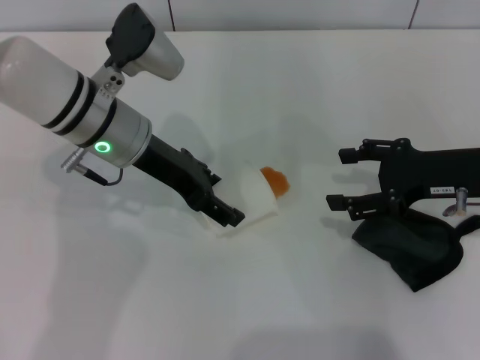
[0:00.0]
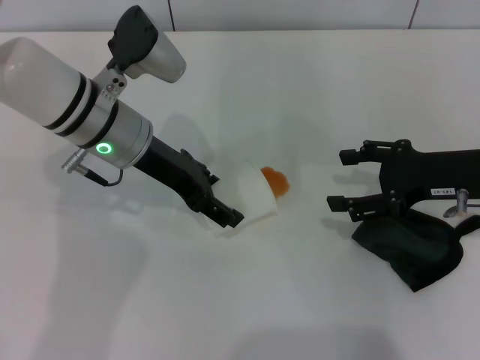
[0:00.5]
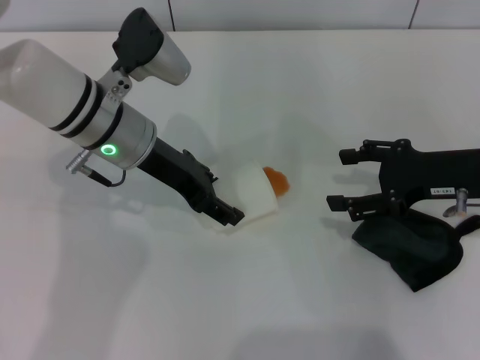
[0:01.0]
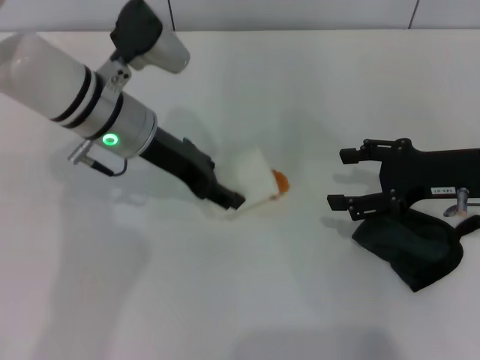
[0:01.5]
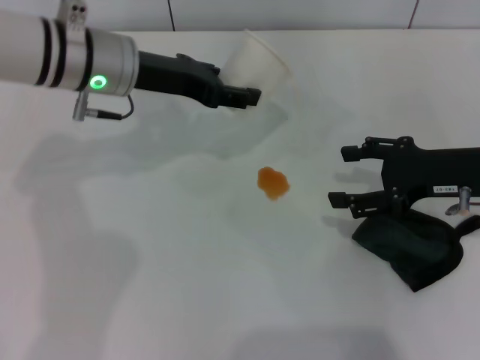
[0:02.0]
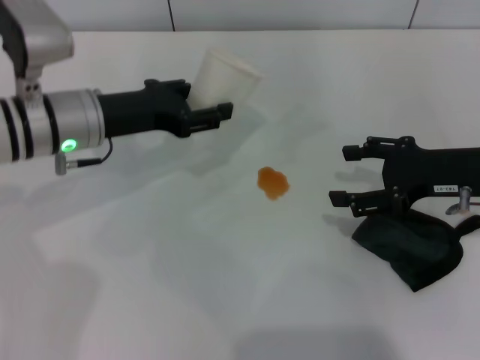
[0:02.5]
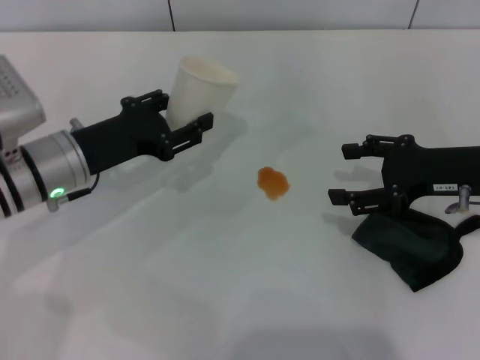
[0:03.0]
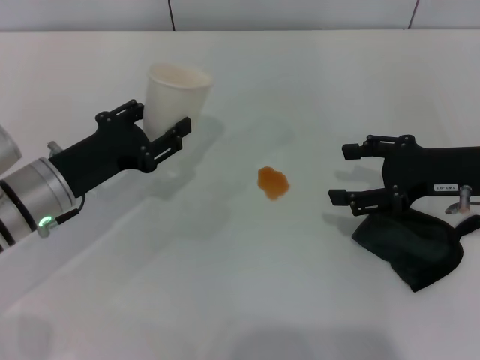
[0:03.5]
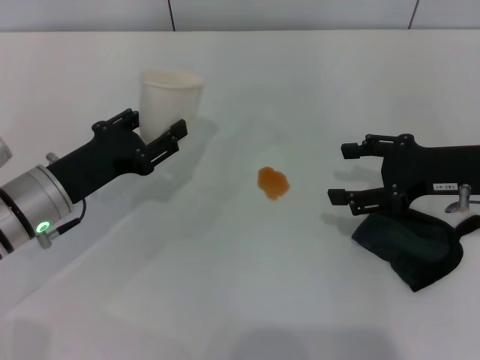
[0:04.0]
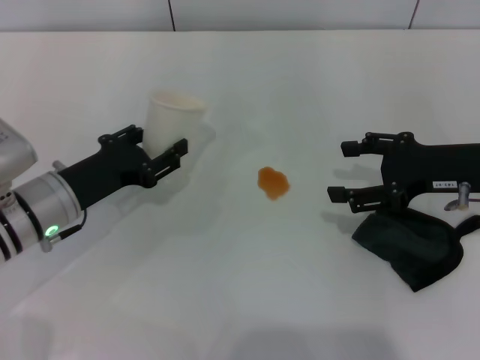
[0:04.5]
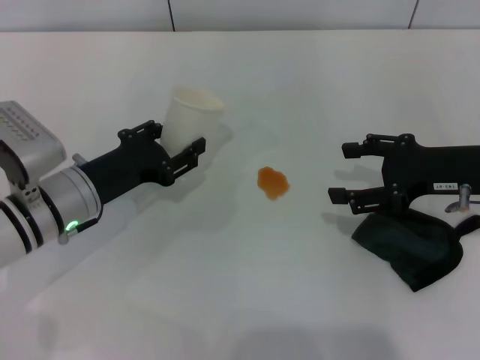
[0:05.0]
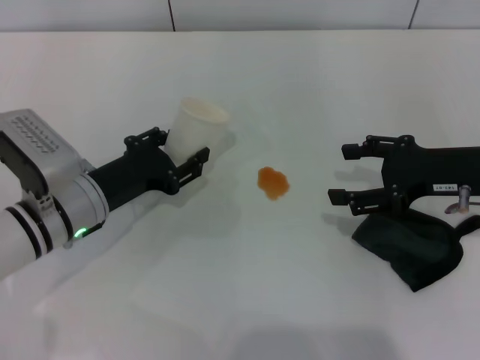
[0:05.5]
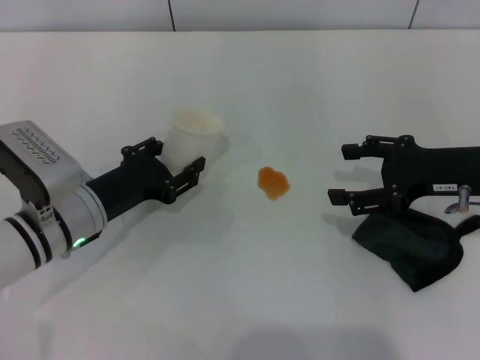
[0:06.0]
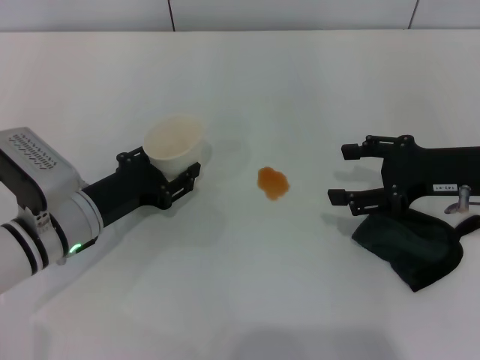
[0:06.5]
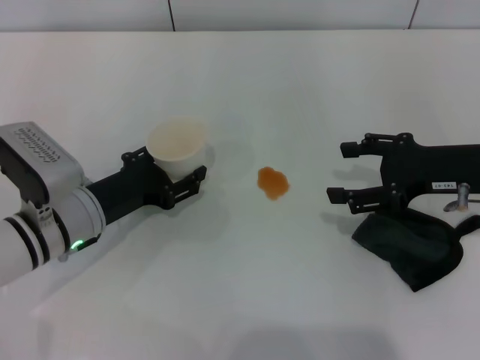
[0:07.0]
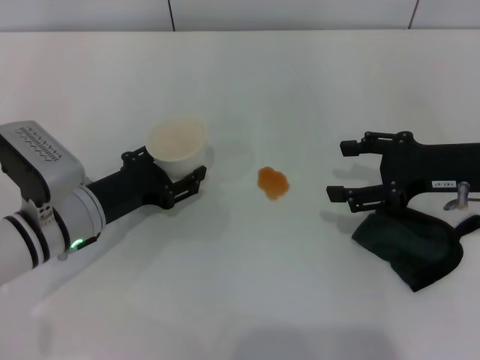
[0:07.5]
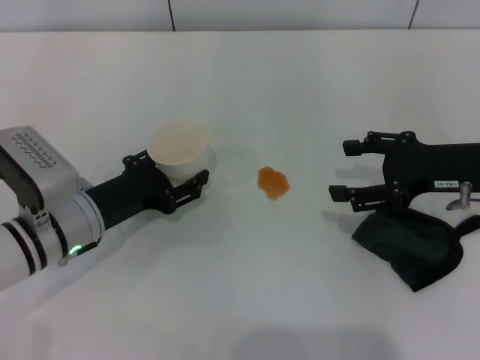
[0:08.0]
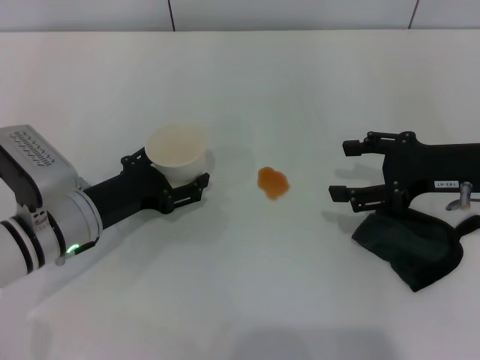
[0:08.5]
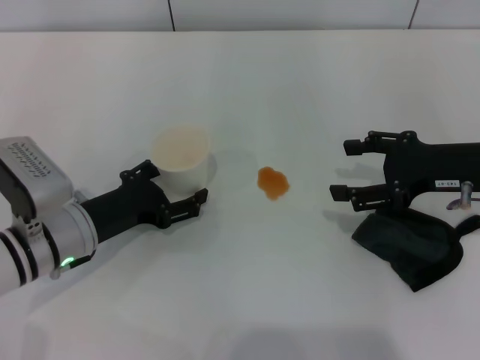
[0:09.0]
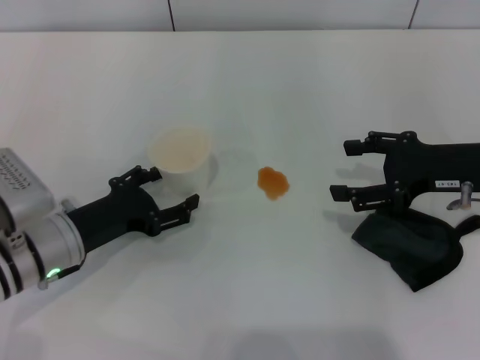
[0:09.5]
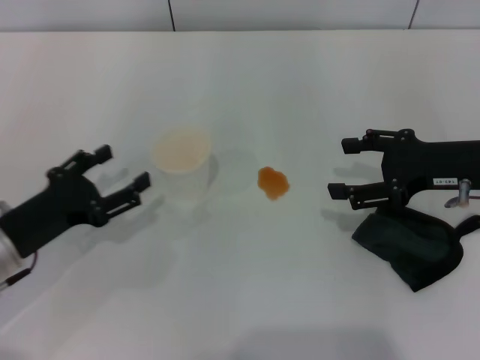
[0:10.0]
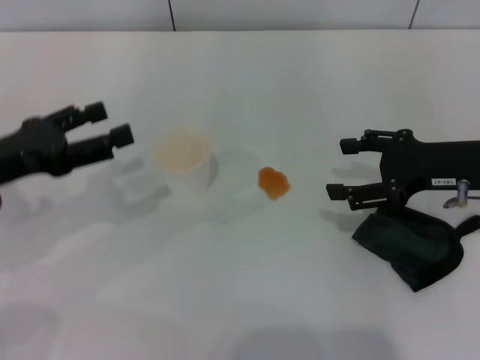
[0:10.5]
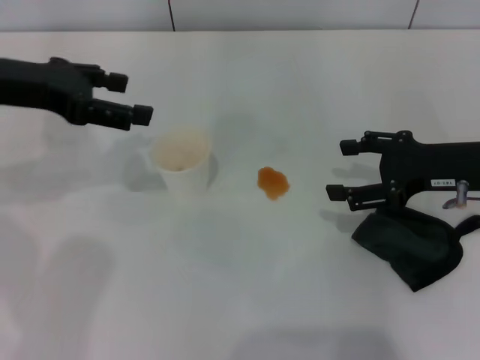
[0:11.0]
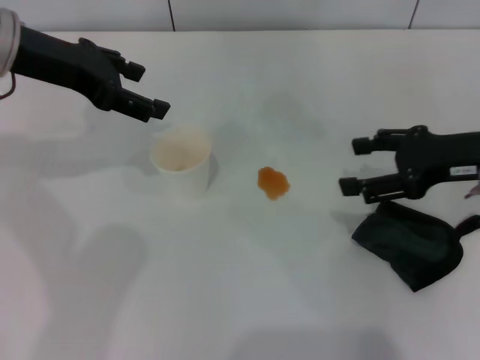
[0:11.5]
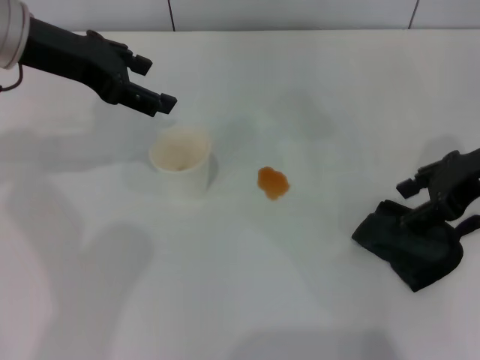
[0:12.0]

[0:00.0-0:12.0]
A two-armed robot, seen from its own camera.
Step, 0:01.0 to 0:09.5: Stand the paper cup upright with the left gripper.
0:00.0 to 0:02.0: The left gripper closes its fingers.
0:02.0 to 0:04.0: The left gripper moves backward, downward and to the left, roughly 15 cm.
0:04.0 to 0:06.0: The grippers make only small movements.
0:06.0 to 0:08.0: Neither gripper changes place.
0:08.0 to 0:10.0: The left gripper heads to the left, covering approximately 5 cm, and opens up.
0:10.0 to 0:12.0: The left gripper is displaced upward and forward by about 25 cm, while the right gripper is displaced upward by about 5 cm.

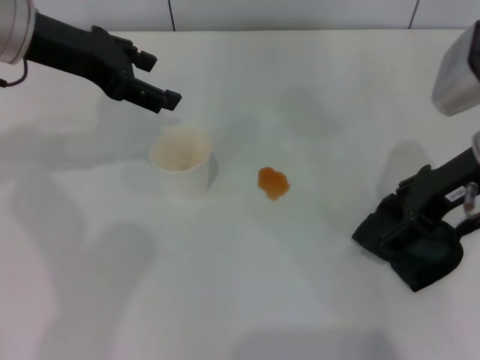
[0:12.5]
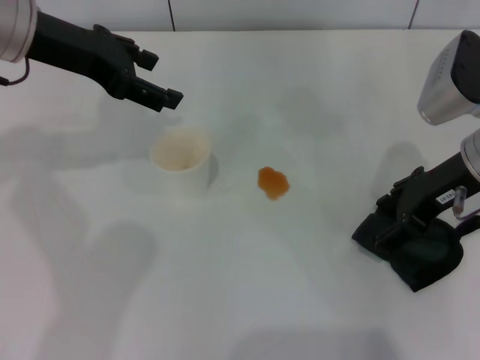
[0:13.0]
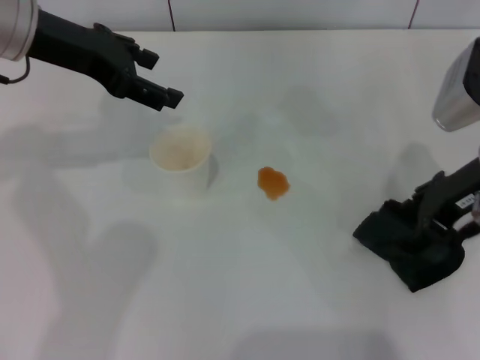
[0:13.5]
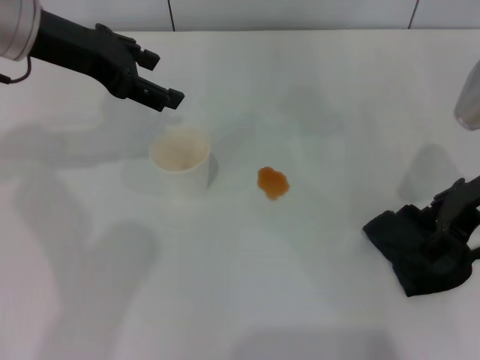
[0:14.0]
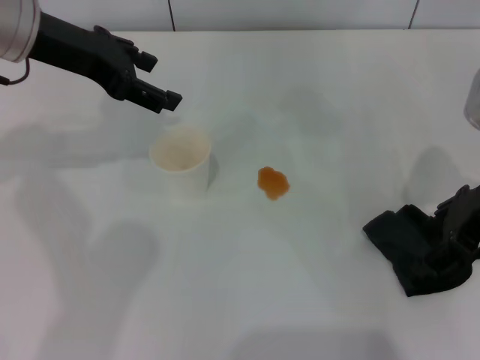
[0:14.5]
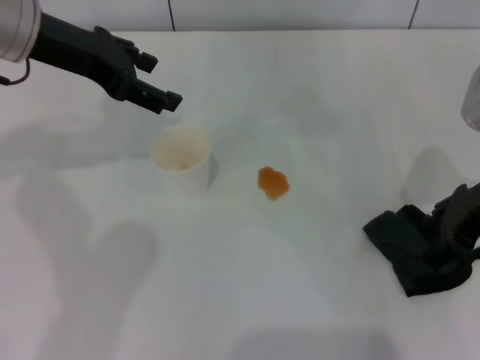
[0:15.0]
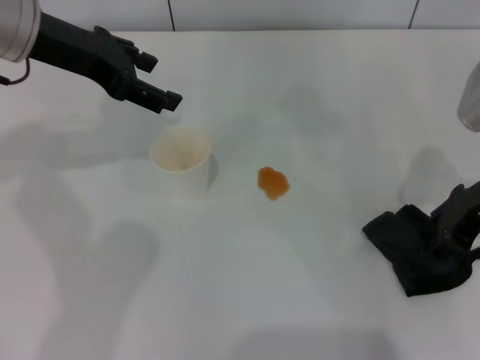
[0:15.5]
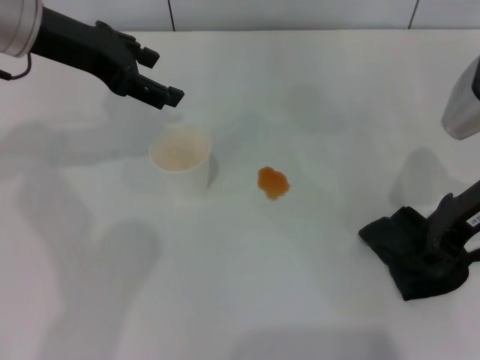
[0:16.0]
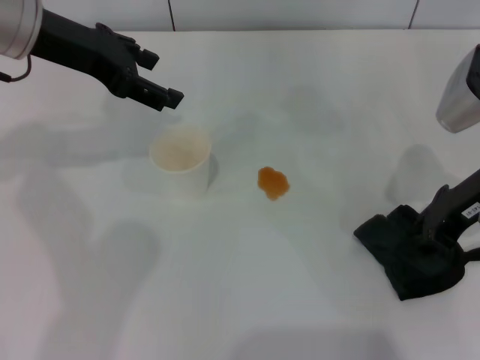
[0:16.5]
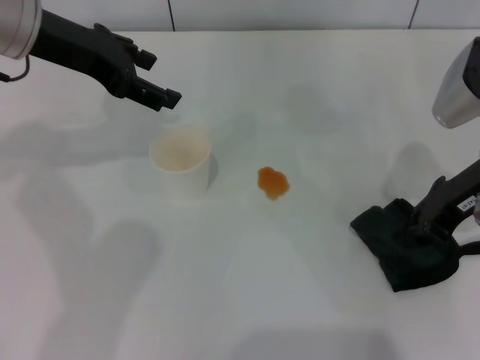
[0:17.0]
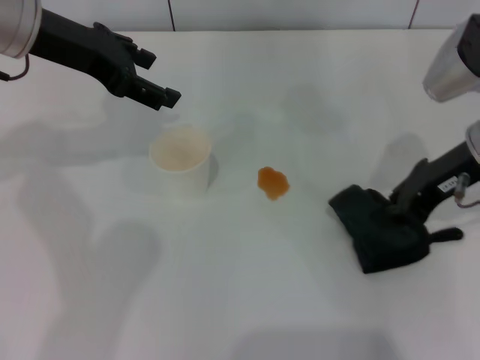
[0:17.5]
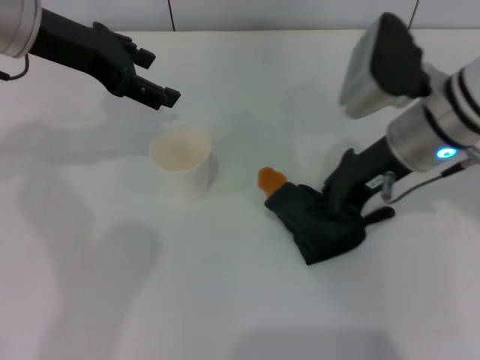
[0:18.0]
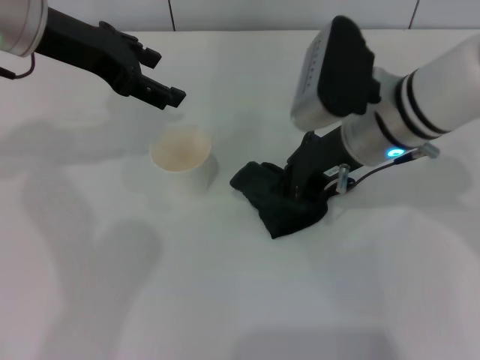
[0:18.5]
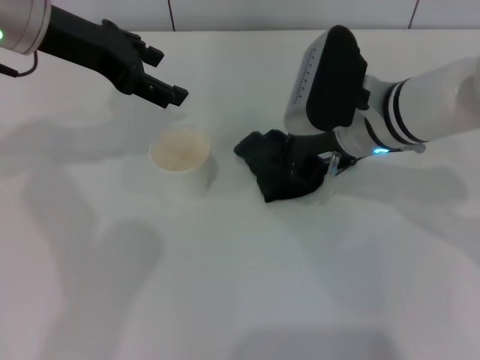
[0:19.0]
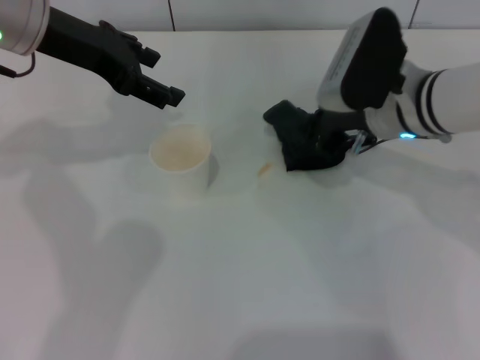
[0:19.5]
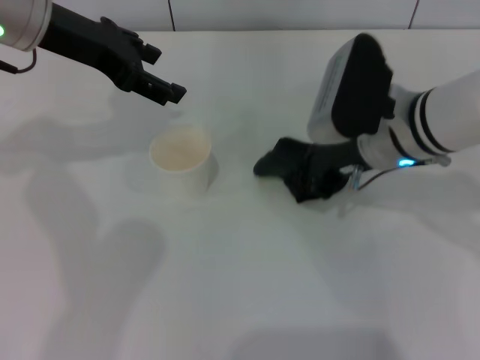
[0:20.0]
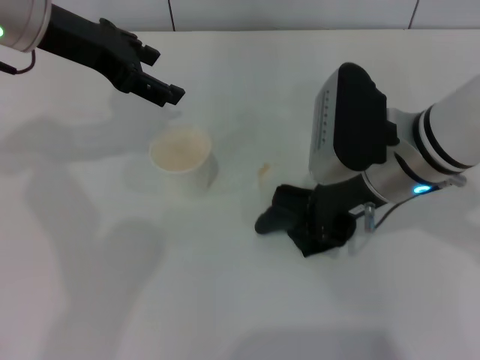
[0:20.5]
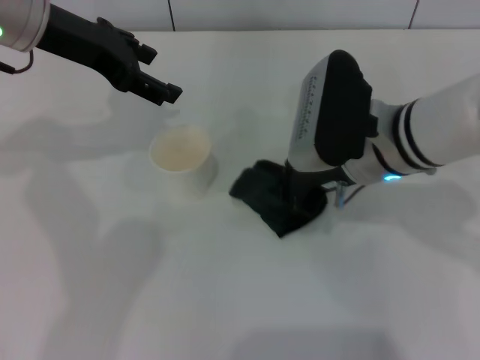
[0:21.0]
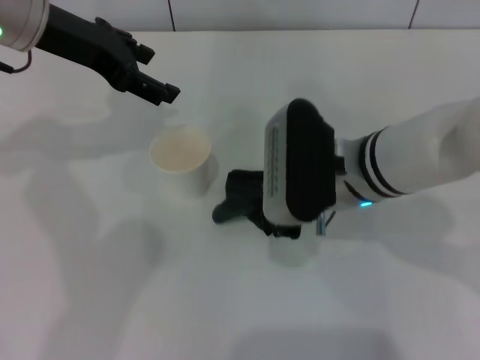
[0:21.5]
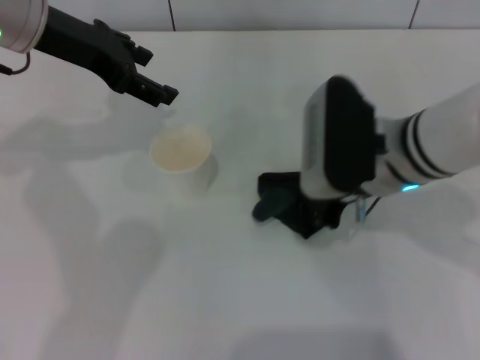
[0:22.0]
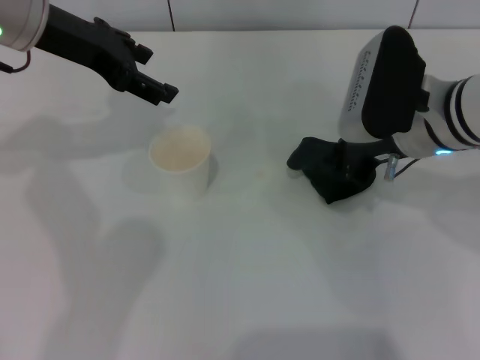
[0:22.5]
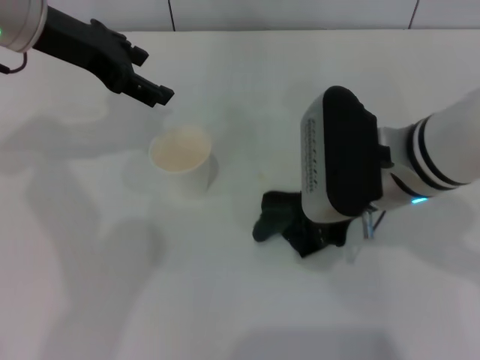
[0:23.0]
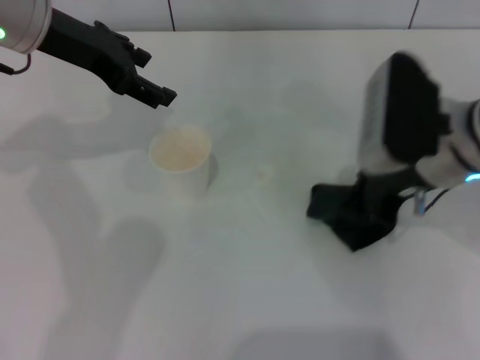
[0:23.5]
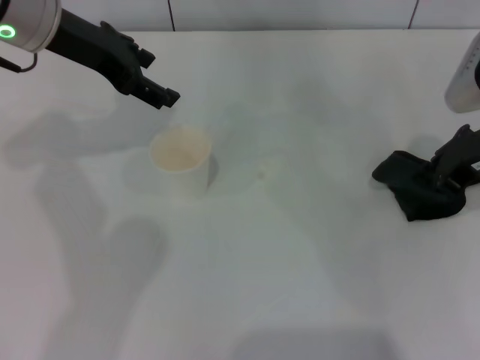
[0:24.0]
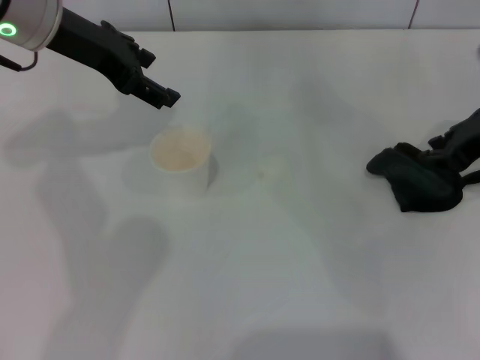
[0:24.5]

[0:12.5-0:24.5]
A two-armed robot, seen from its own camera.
Step, 0:12.5 to 0:15.5: Grasp the rag with the right gripper.
Step, 0:16.5 to 0:23.0: Wipe the stains off the table with the right gripper.
0:12.5 to 0:14.5: There are only small adjustments of the grippers.
0:14.5 to 0:16.5: The right gripper closes its fingers.
0:16.5 to 0:18.5: The right gripper moves to the left, about 10 cm.
0:20.5 to 0:22.5: There are only small adjustments of the grippers.
0:22.5 to 0:24.5: The right gripper moves to the right, roughly 10 cm.

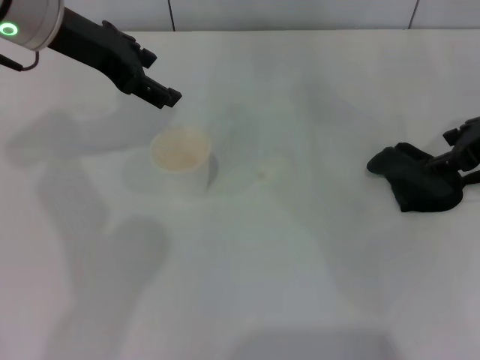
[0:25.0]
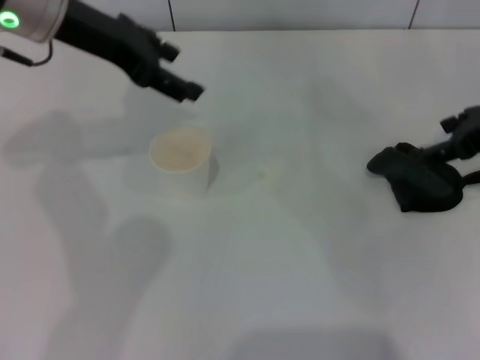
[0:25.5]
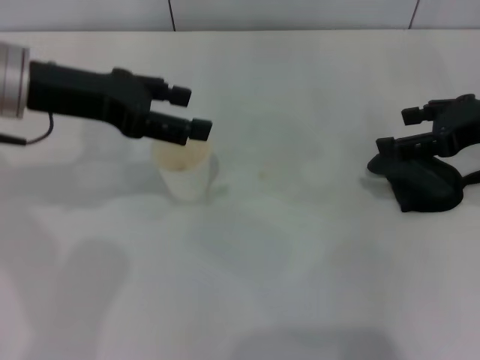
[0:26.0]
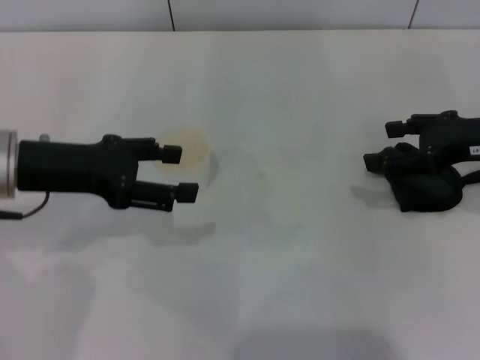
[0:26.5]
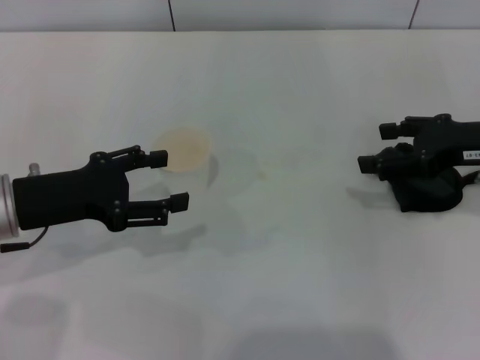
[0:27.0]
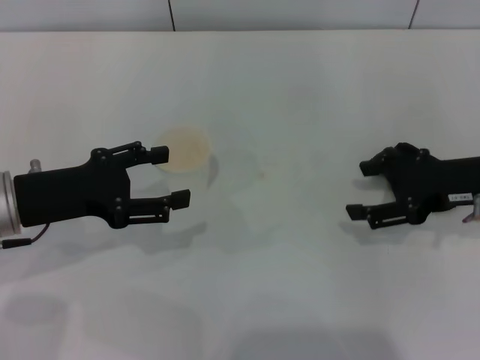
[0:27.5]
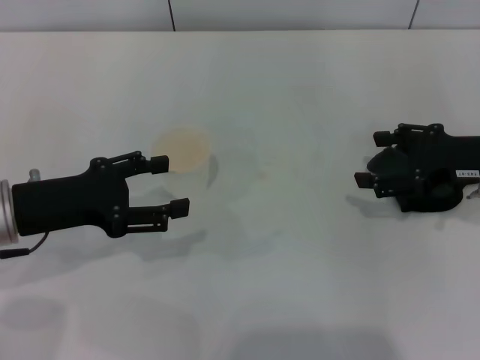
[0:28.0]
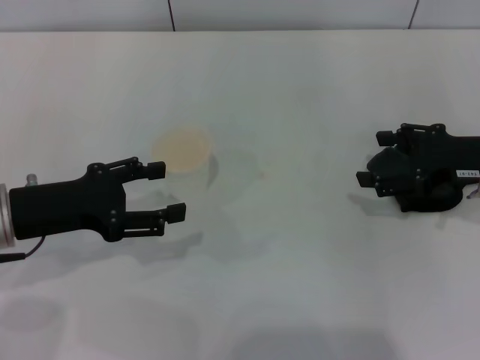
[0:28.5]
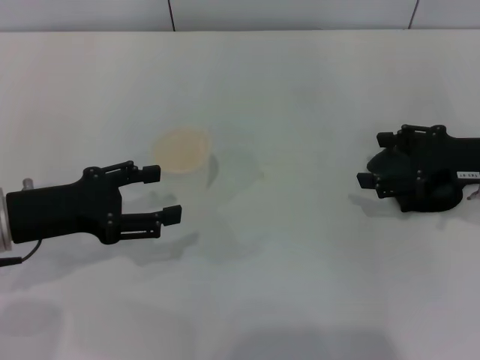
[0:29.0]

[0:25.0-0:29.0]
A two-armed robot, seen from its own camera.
Step, 0:25.0 to 0:27.0: Place the rag on the table with the right gripper.
0:25.0 to 0:27.0: The left gripper shifts some 20 cm backward, downward and to the left, while the right gripper opens its fingers.
0:27.0 to 0:29.0: The grippers move only a little.
